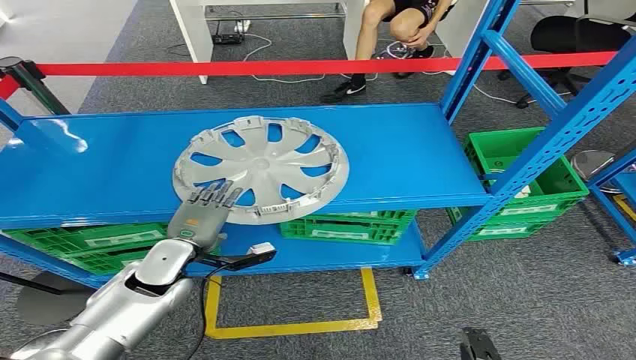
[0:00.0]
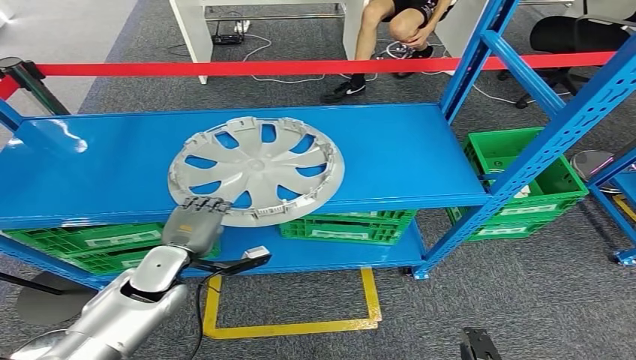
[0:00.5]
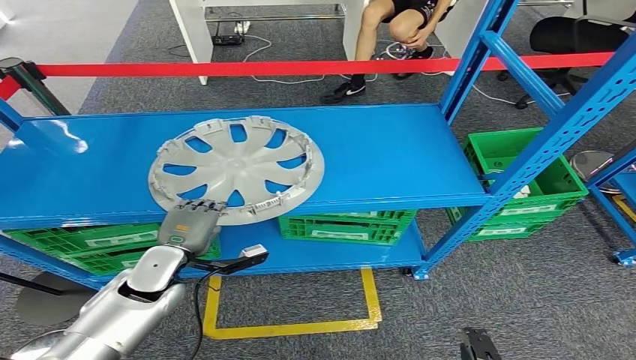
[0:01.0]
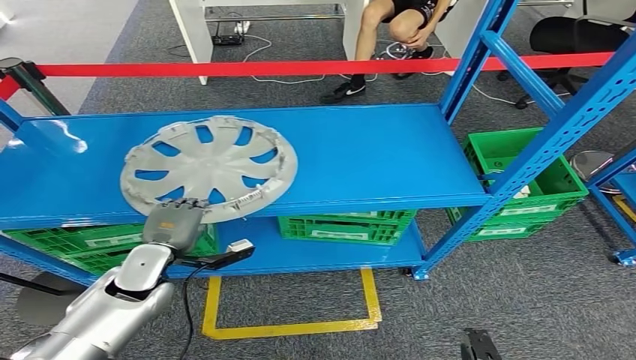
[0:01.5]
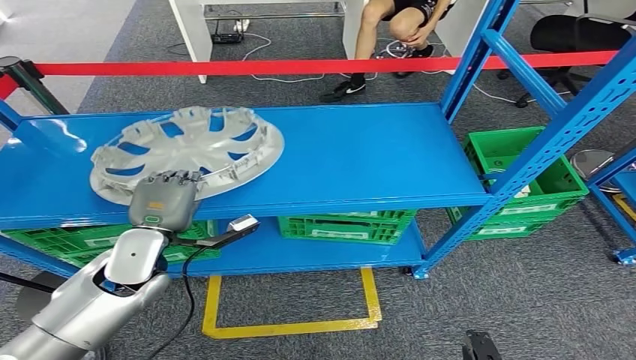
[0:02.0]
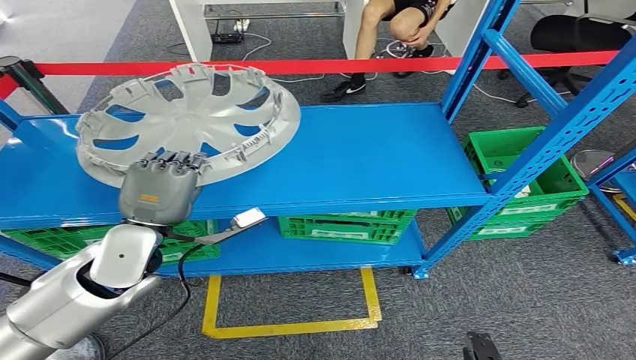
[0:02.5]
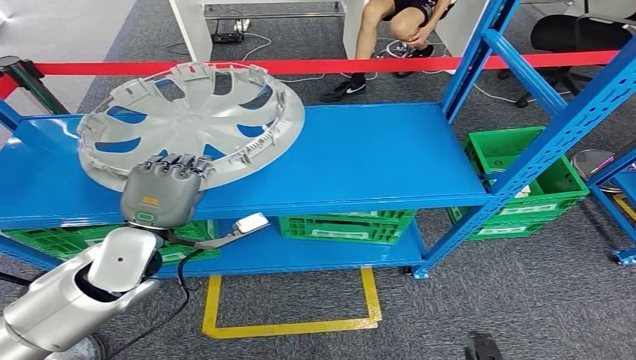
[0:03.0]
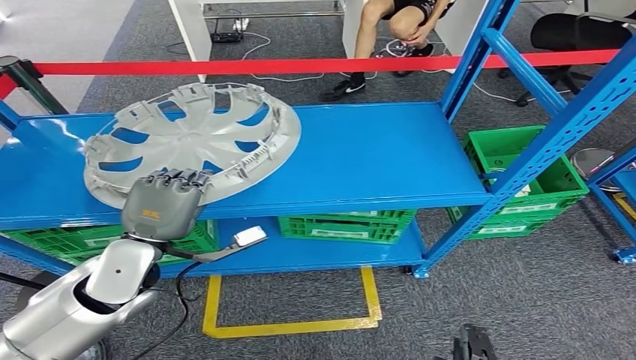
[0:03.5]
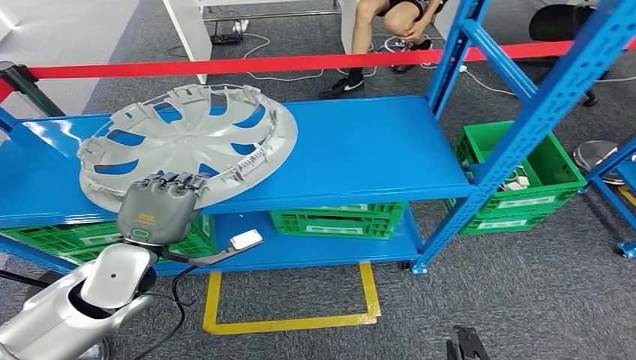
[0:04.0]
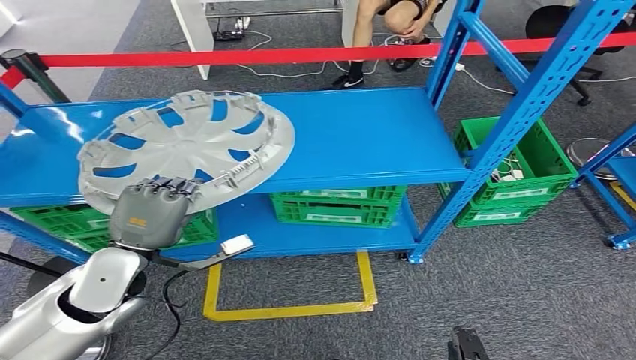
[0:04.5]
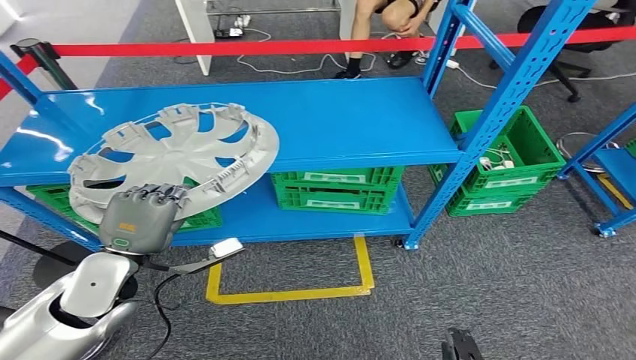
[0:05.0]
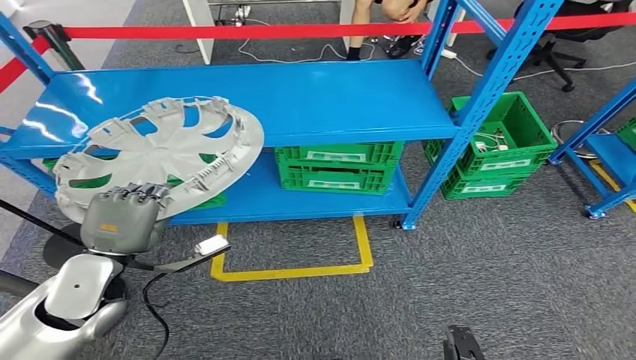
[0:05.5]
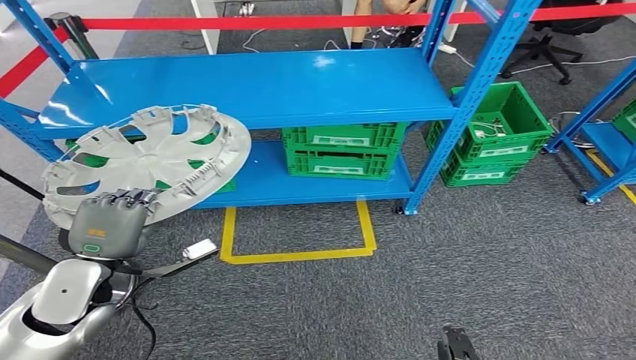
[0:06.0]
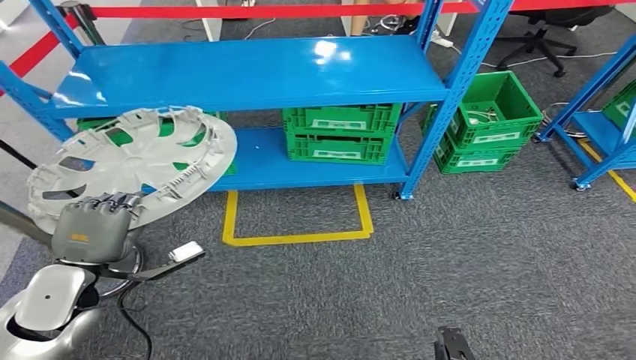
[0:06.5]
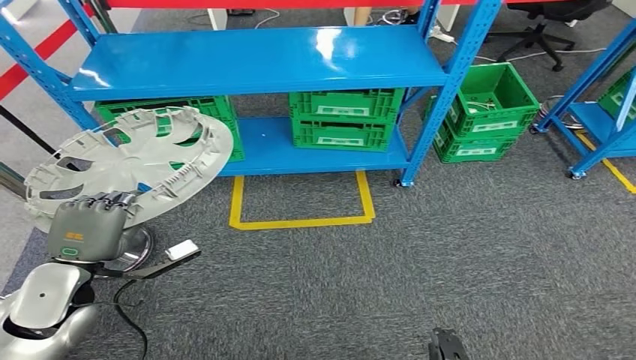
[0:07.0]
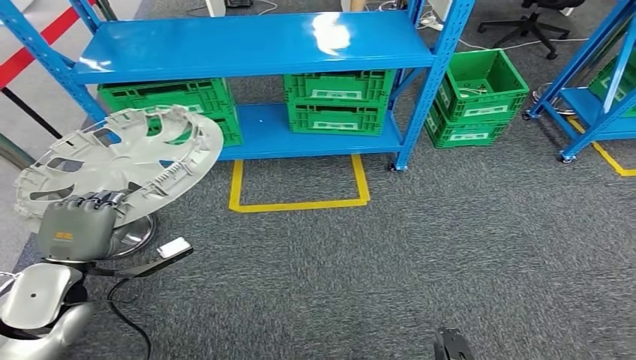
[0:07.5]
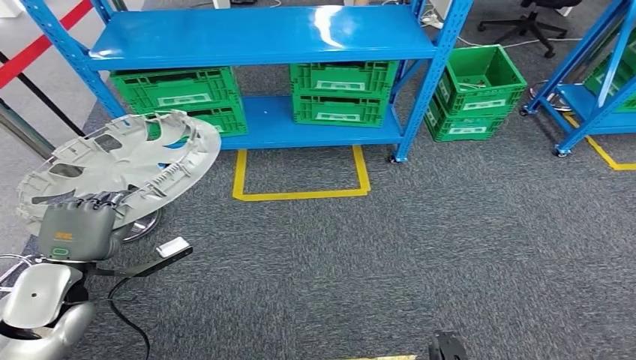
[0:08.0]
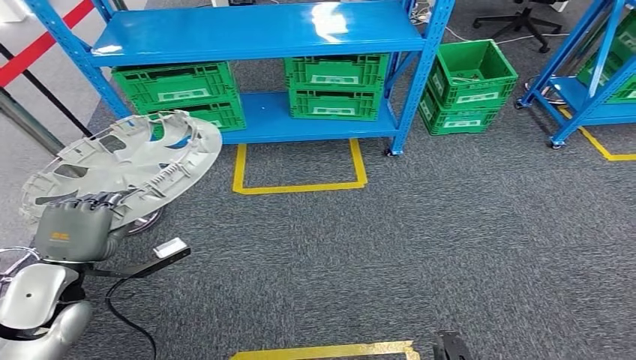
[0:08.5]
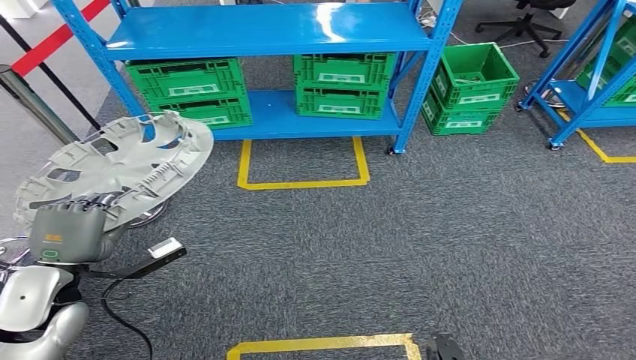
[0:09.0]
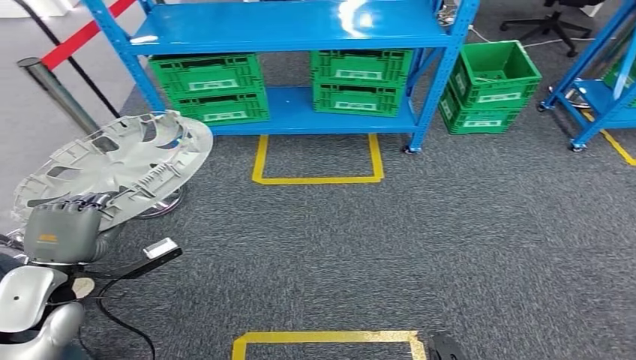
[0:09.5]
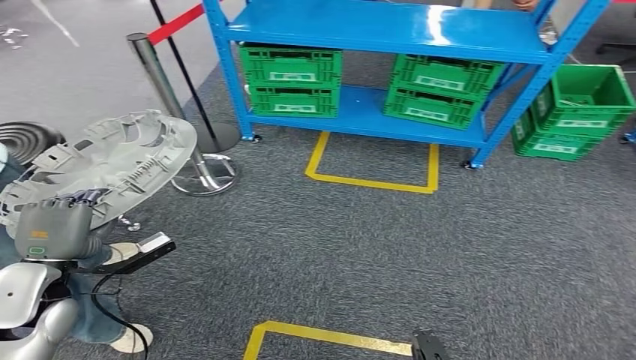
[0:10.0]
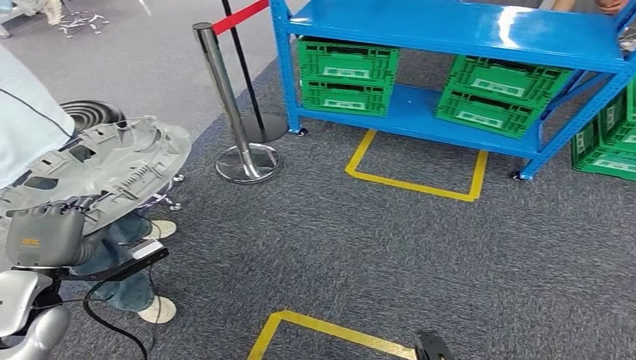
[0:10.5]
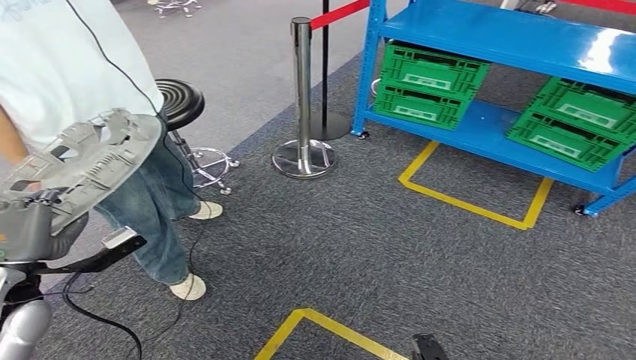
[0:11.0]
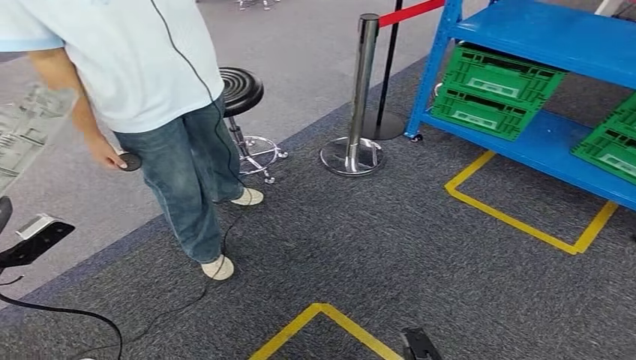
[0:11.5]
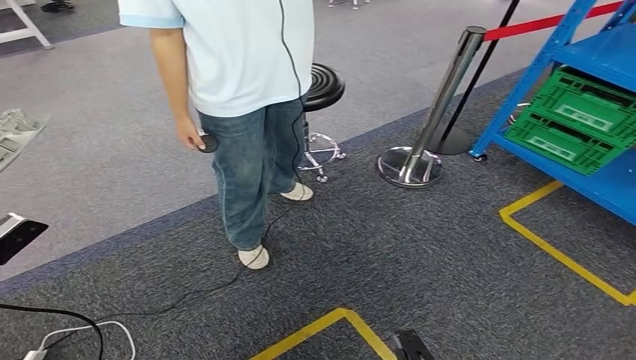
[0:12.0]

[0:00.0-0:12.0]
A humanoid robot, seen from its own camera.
Step, 0:00.0 to 0:06.0: Take small components from the rack.

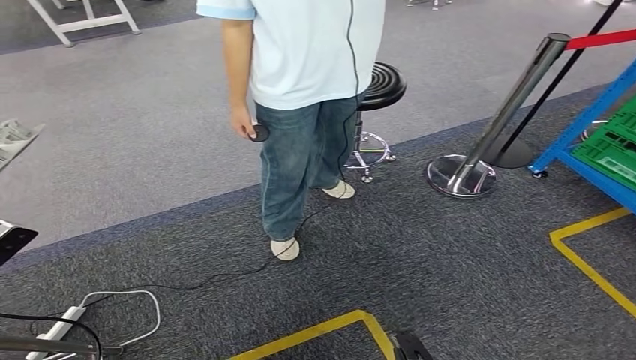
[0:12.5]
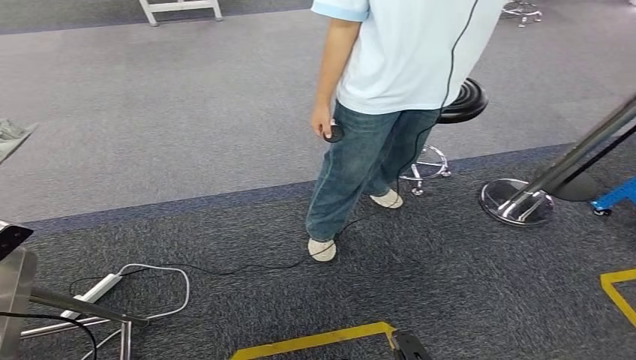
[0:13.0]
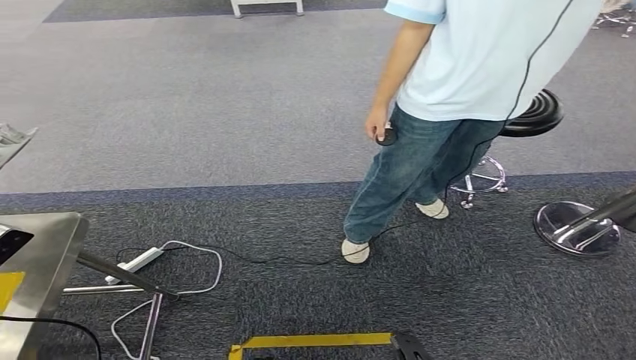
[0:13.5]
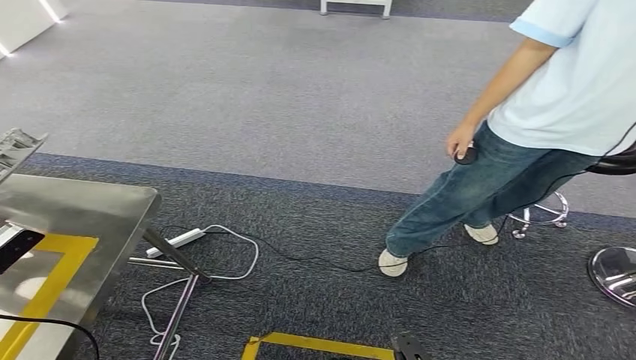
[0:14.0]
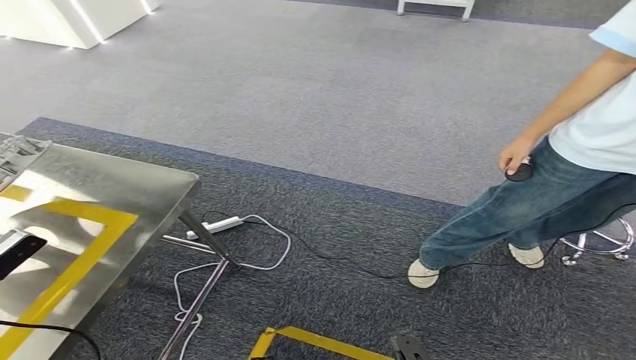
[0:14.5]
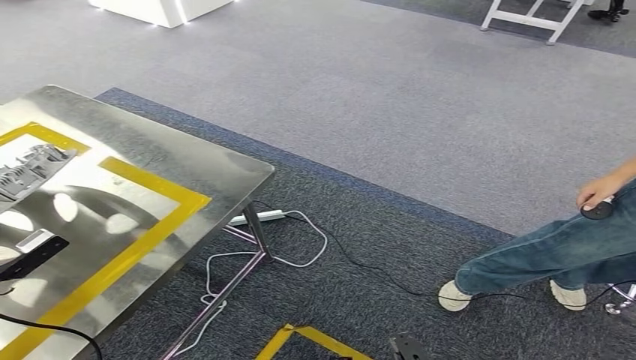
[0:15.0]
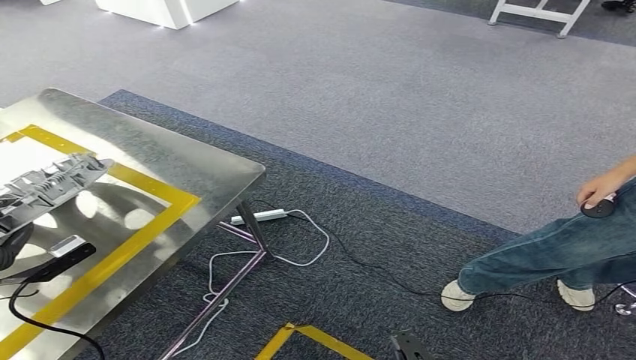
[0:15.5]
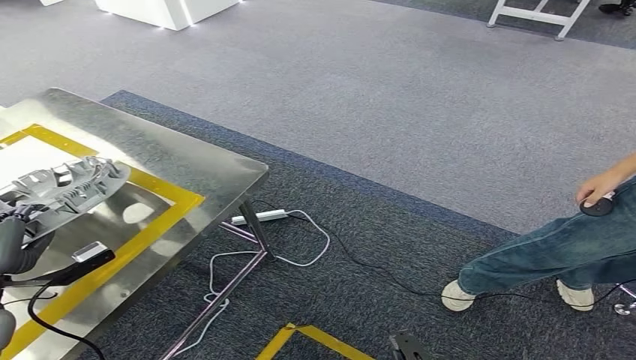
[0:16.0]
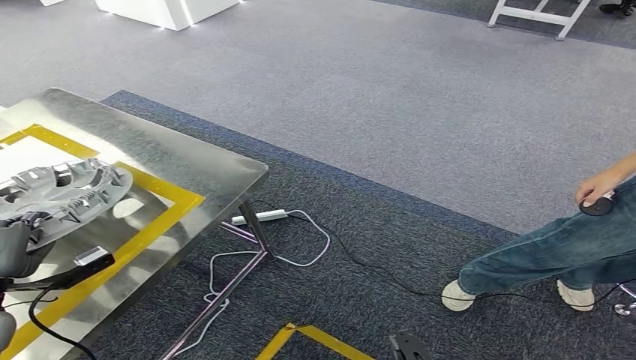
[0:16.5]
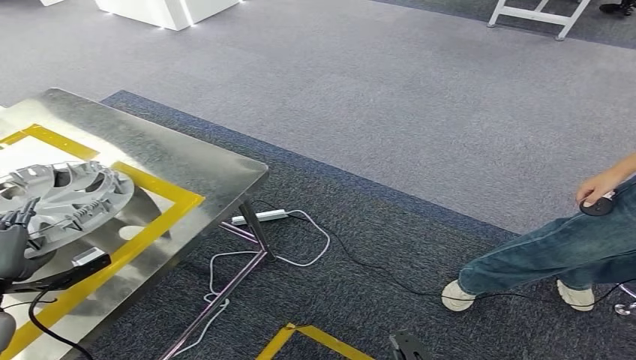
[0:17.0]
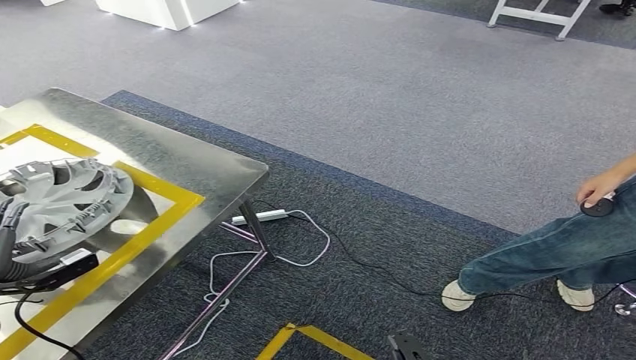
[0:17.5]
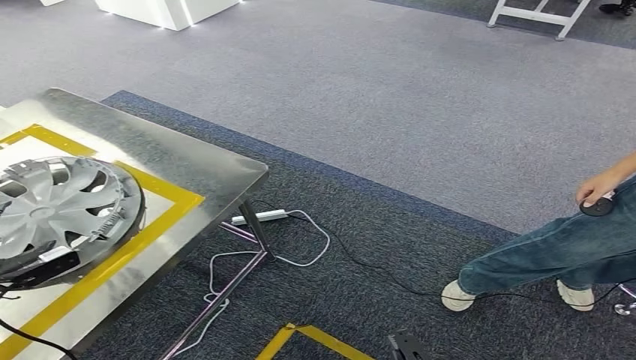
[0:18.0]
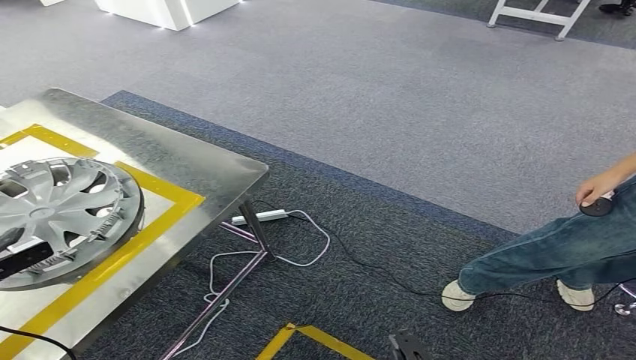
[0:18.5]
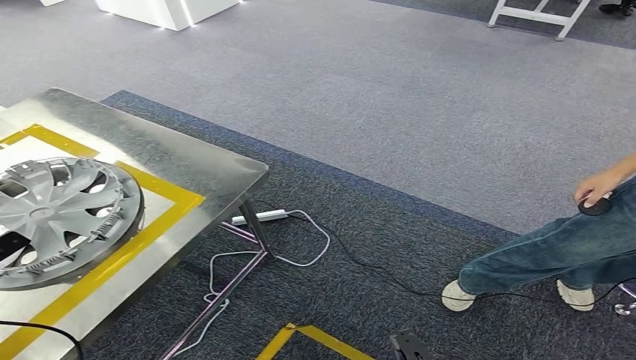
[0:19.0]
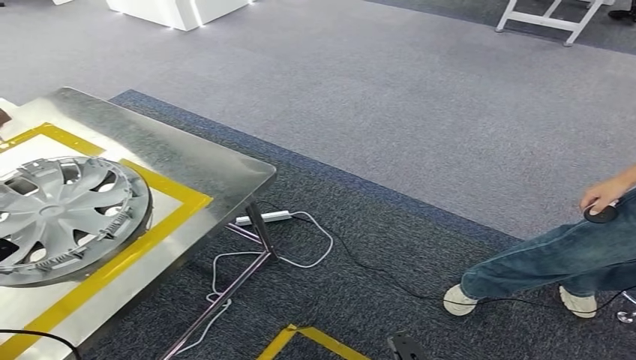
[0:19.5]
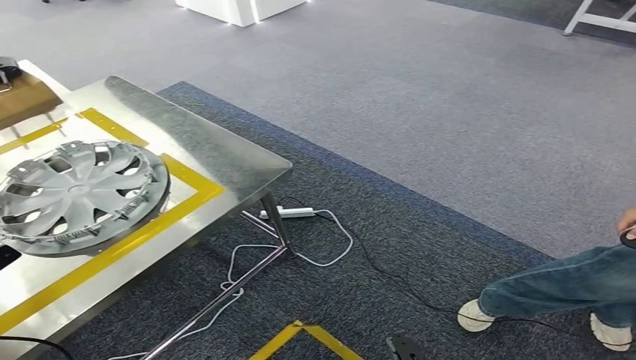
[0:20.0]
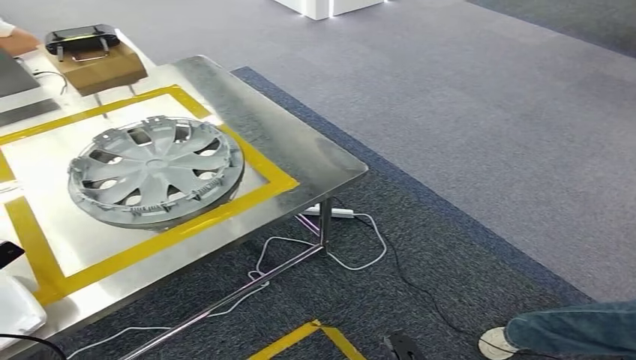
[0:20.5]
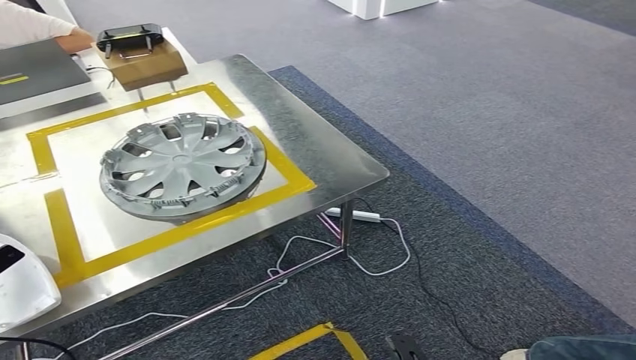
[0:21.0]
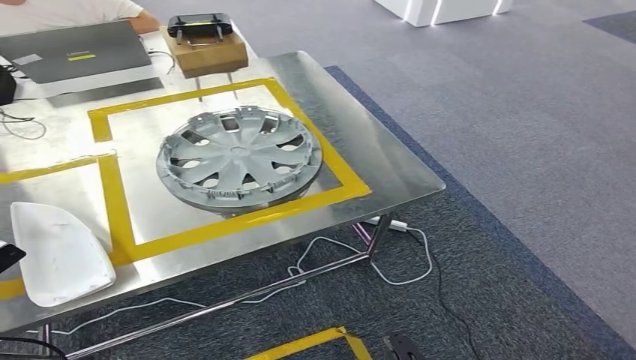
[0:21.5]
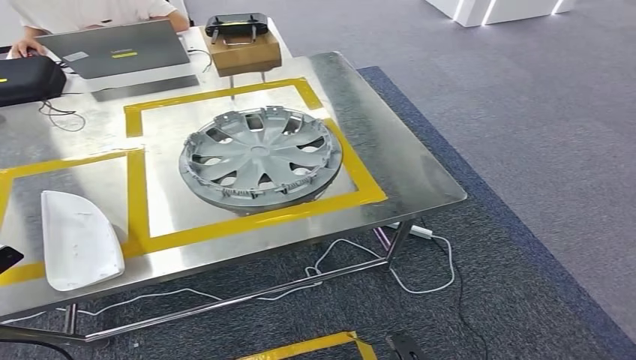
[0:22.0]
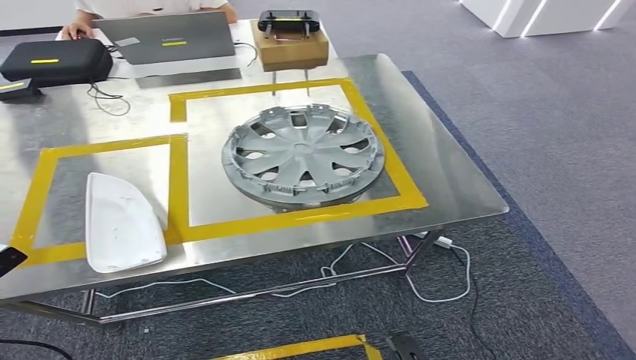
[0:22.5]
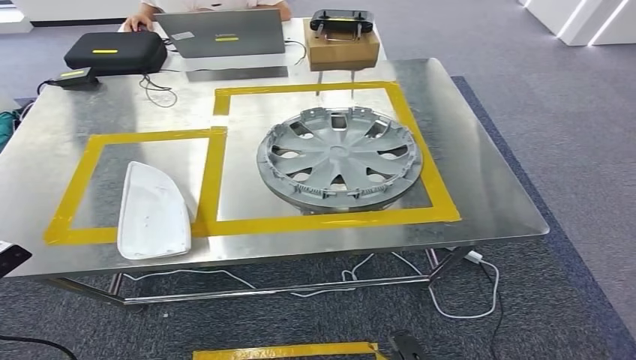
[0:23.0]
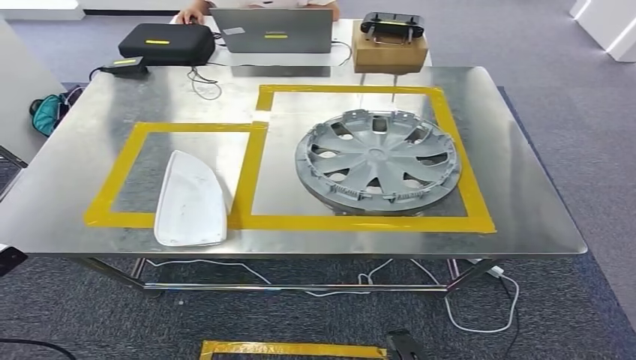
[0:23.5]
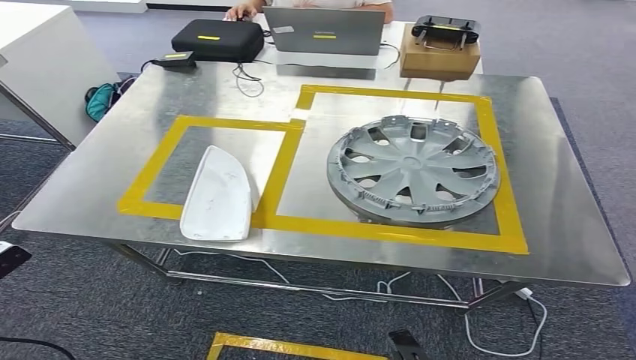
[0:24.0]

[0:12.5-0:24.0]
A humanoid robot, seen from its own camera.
Step, 0:14.5 to 0:20.5: Insert the small parts into the corresponding holes on the workbench.
0:16.5 to 0:18.5: The left hand goes about 10 cm to the left.
